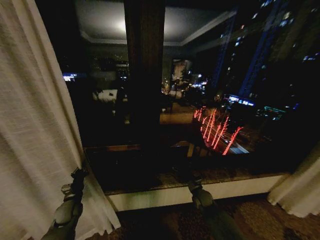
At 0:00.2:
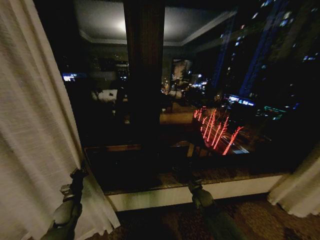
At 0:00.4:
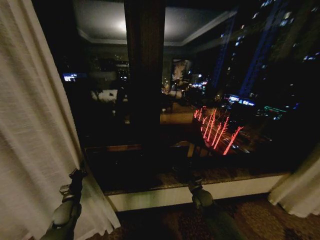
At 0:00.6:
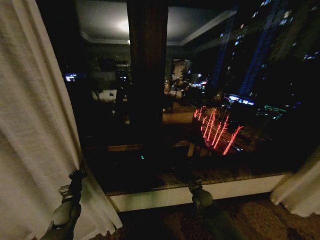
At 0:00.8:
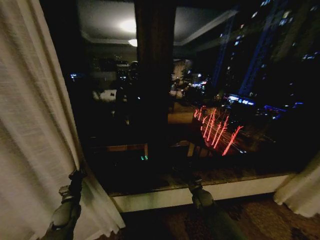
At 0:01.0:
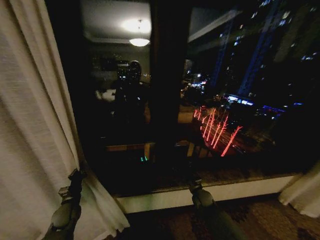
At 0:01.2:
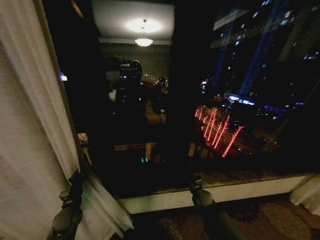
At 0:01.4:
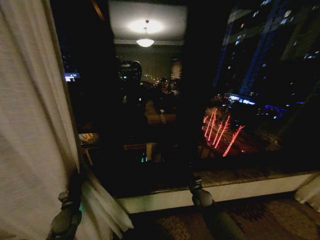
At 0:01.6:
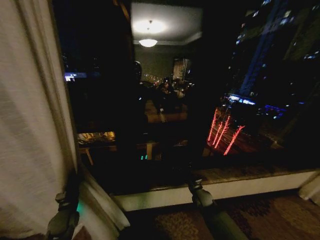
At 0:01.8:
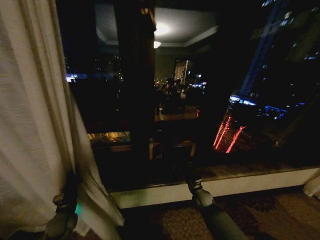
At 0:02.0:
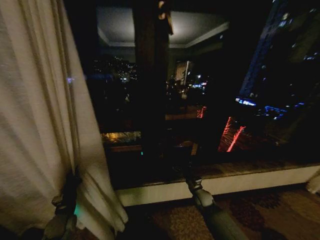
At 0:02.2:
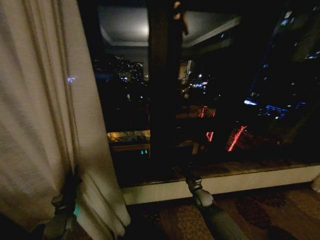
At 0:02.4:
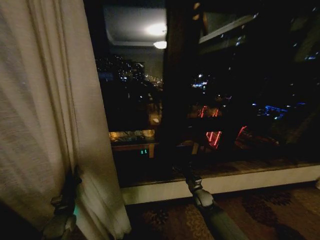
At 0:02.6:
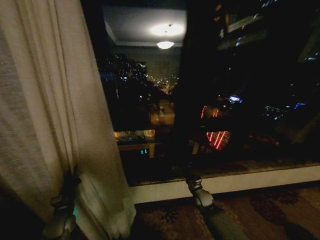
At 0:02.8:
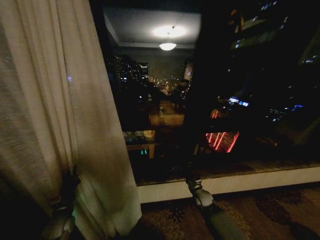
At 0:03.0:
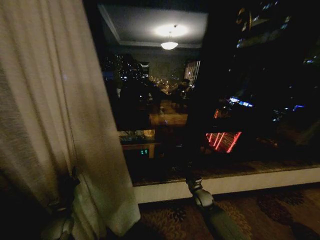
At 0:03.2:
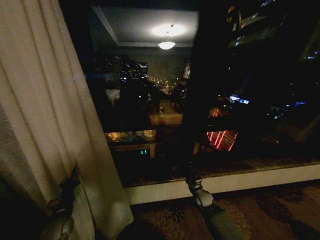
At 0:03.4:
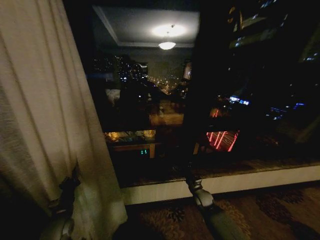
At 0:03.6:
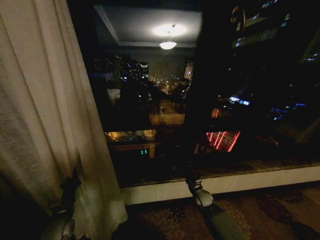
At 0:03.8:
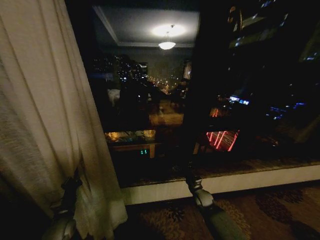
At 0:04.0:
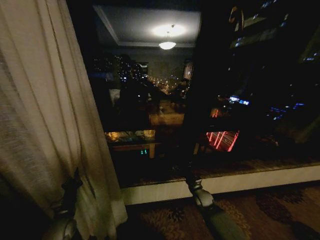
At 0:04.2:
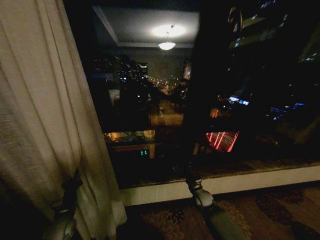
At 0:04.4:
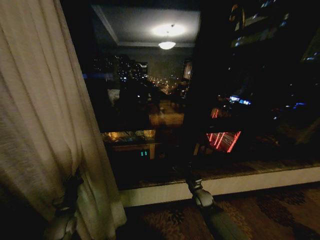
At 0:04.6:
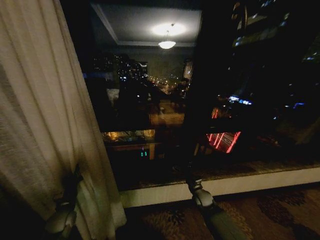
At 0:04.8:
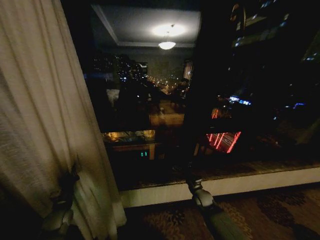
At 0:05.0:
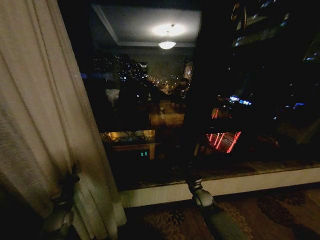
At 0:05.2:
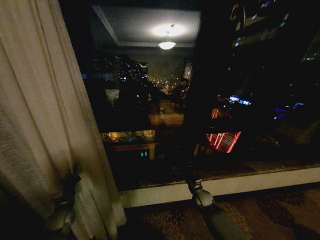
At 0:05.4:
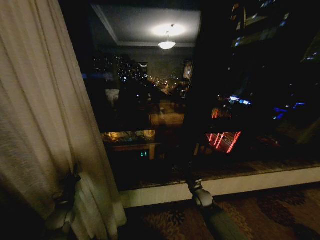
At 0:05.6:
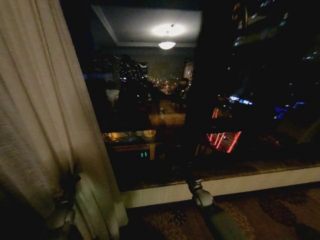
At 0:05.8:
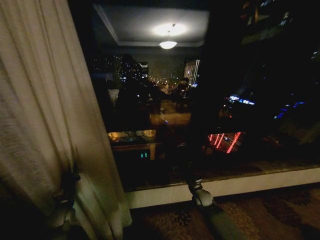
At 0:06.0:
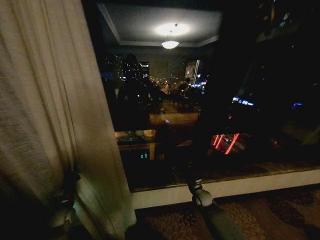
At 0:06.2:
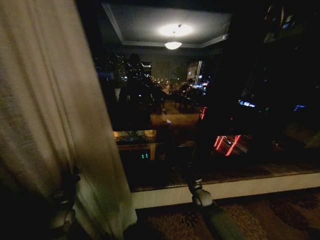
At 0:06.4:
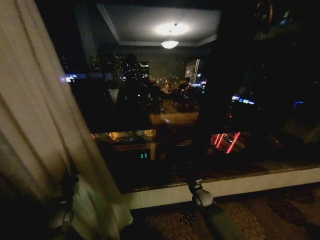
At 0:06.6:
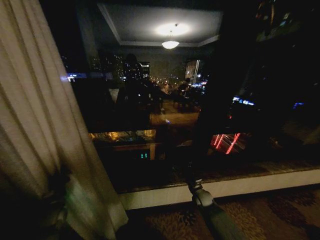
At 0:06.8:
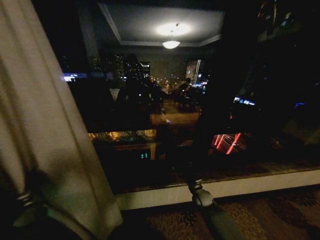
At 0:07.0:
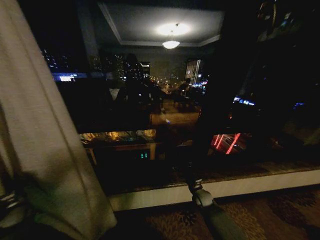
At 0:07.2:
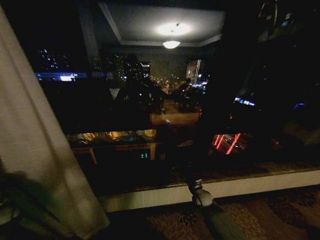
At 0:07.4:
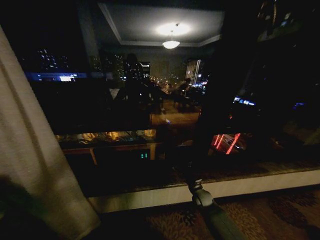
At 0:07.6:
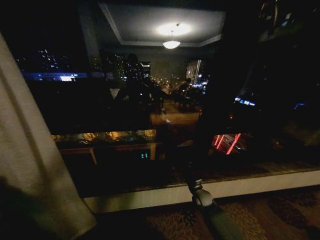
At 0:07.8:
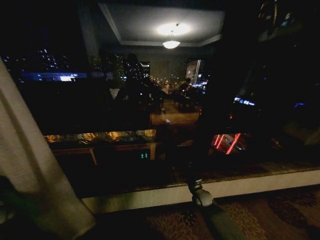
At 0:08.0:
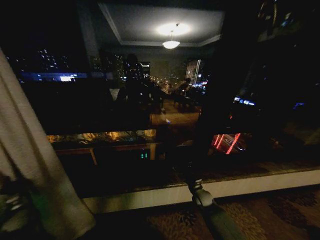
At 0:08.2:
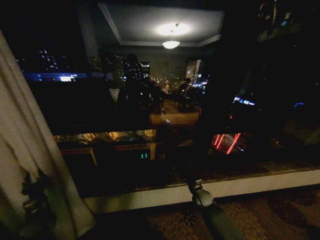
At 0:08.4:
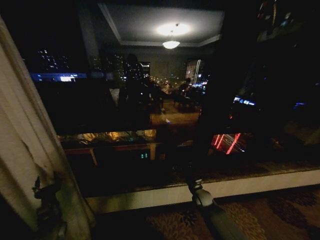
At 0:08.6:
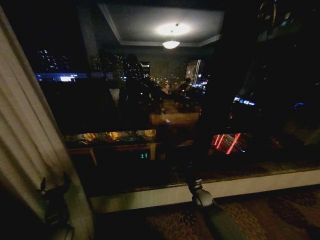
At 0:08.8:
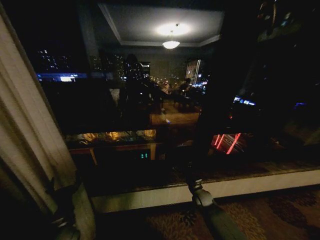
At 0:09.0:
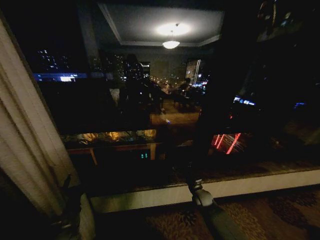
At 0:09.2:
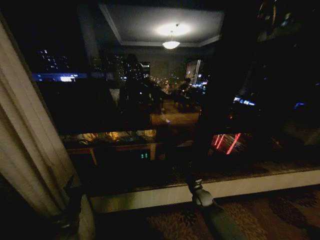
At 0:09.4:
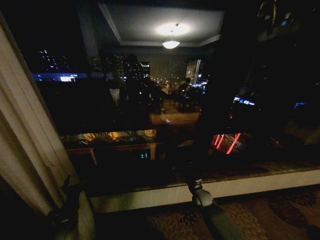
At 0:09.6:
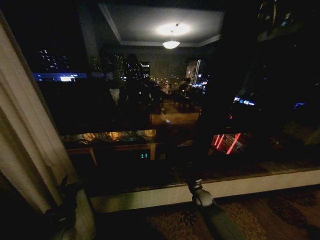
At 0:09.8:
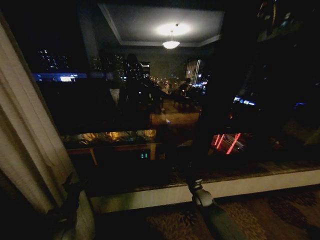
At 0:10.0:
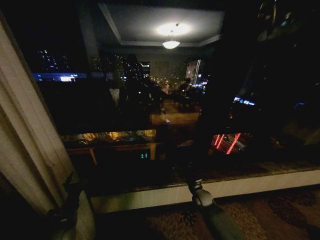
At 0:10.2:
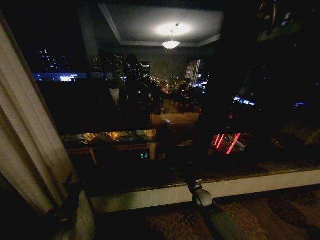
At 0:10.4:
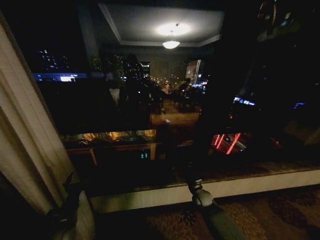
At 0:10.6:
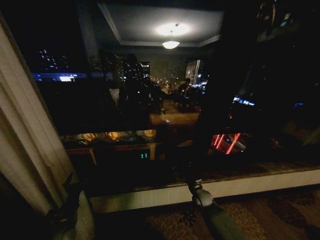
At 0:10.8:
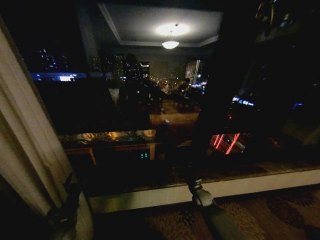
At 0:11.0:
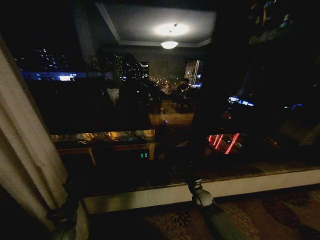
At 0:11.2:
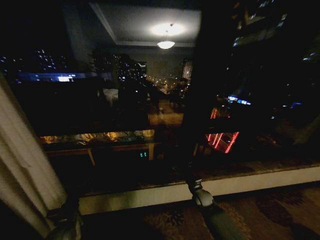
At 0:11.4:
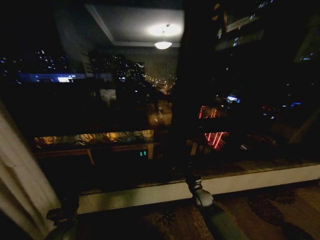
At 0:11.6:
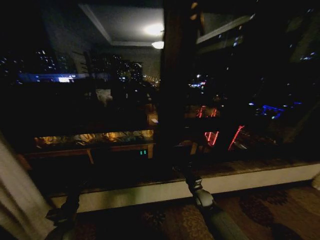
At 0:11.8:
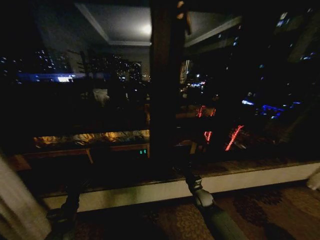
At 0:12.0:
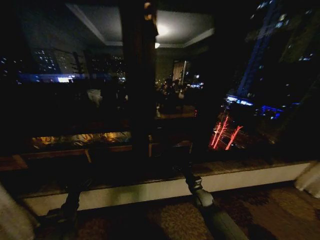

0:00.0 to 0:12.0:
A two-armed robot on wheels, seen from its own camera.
Task of the whole recording: Open the curtains by pulling them apart, changing their state from closed to fully open.
0:03.0 to 0:04.4: There are only small adjustments of the grippers.
0:04.4 to 0:06.0: The left gripper ends up some 5 cm from where it was.
0:06.0 to 0:07.6: The left gripper goes about 25 cm to the left.
0:07.6 to 0:09.0: The left gripper moves to the right, approximately 35 cm, and opens its fingers.
0:09.0 to 0:10.4: The grippers stay close to where they were, moving slightly.

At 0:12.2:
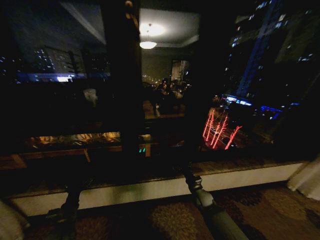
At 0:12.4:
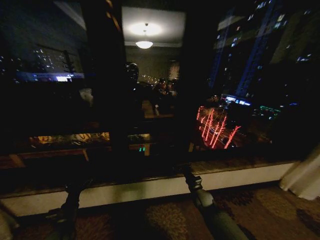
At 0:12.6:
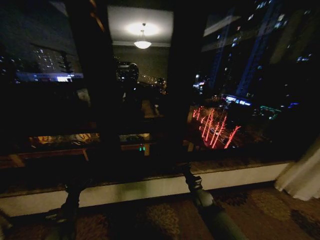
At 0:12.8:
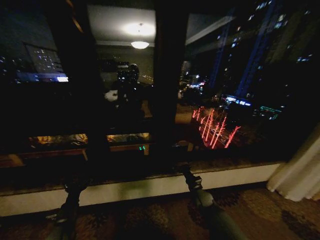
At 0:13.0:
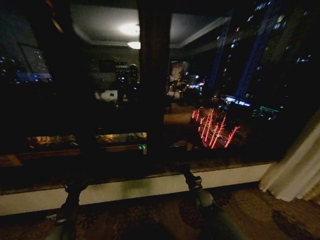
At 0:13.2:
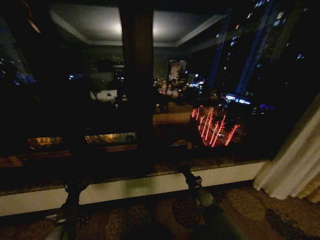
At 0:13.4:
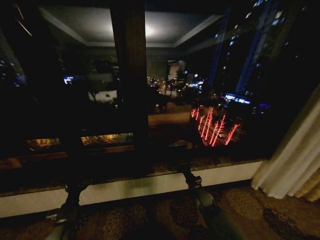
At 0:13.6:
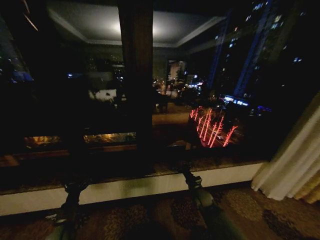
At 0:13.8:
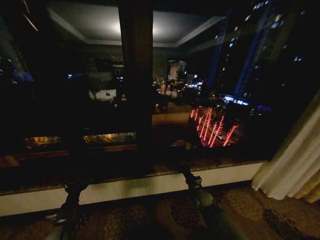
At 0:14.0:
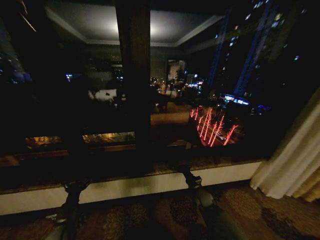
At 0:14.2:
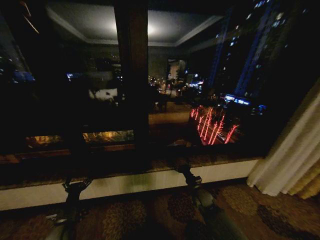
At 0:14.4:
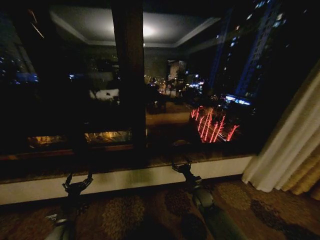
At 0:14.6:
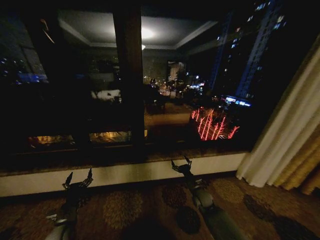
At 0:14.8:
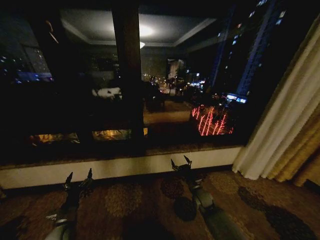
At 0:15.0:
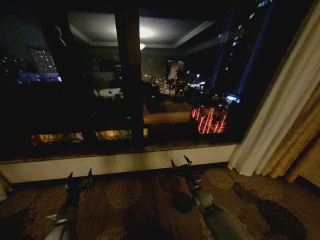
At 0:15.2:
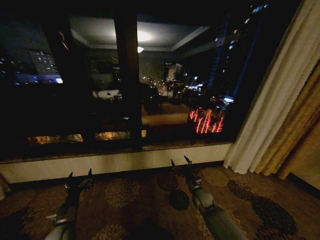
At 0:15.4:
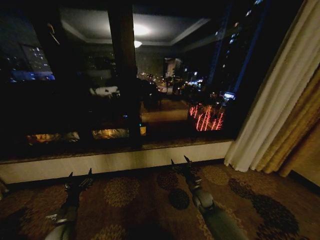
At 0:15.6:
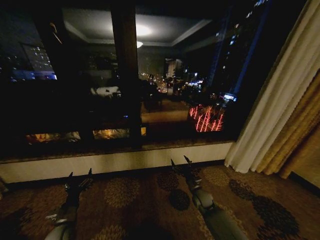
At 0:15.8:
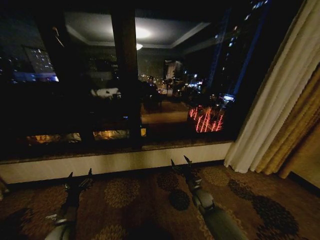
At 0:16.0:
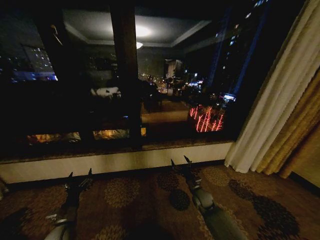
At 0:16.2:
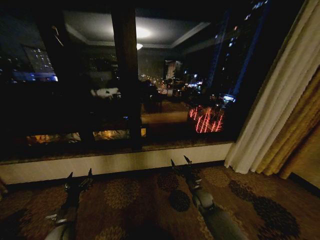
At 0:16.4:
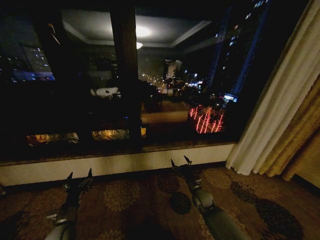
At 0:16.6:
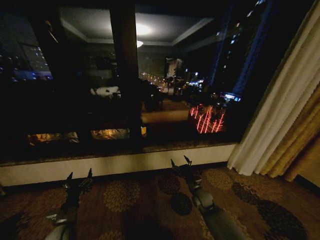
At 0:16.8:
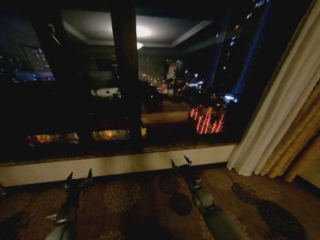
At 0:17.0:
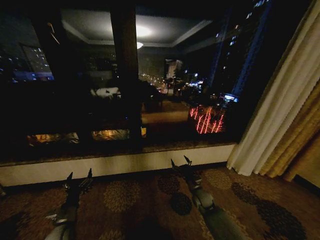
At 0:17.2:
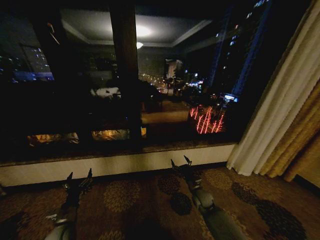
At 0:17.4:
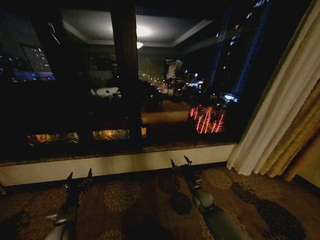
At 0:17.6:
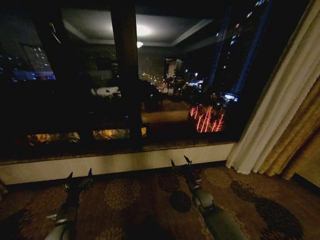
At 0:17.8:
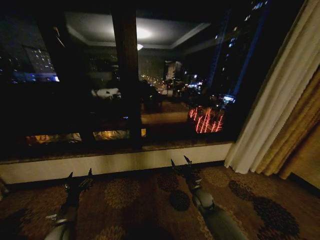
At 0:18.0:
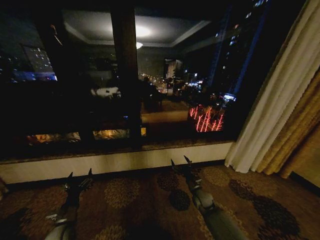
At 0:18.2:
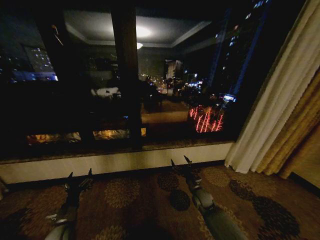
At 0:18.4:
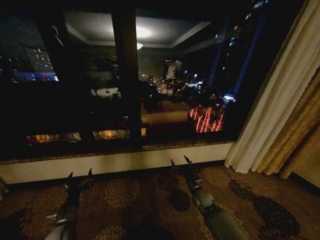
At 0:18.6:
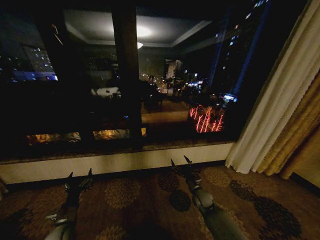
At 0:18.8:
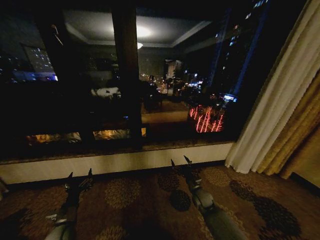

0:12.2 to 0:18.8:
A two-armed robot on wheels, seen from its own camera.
Task of the whole recording: Open the curtains by pulling them apart, changing their state from closed to fully open.
0:15.4 to 0:18.8: Both grippers stay about where they are.
